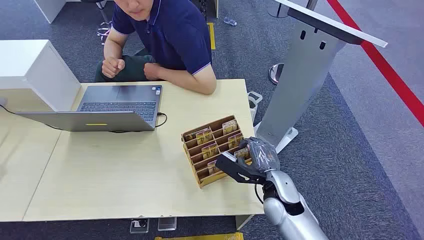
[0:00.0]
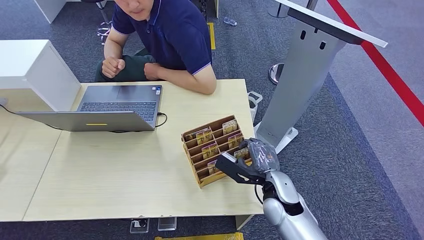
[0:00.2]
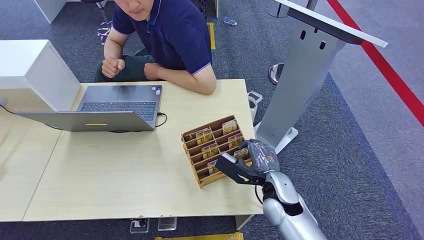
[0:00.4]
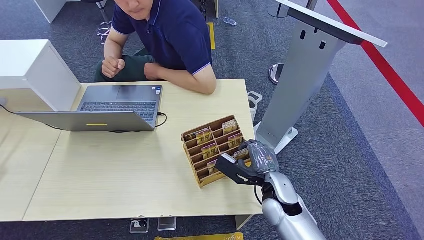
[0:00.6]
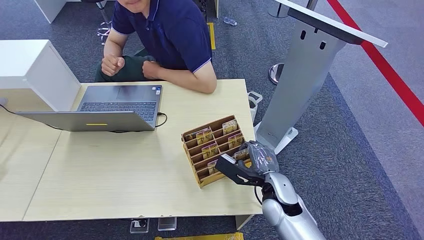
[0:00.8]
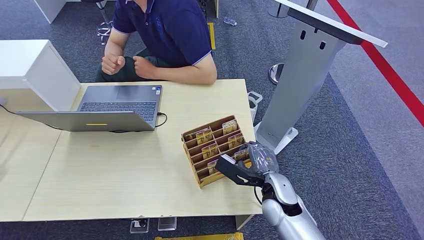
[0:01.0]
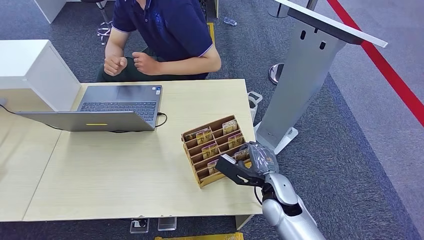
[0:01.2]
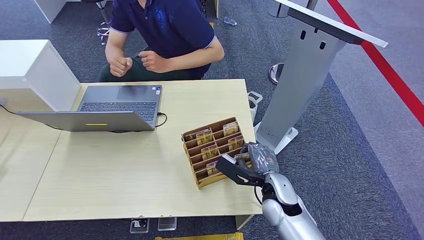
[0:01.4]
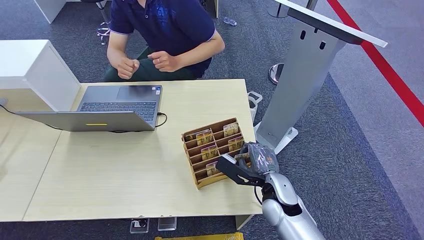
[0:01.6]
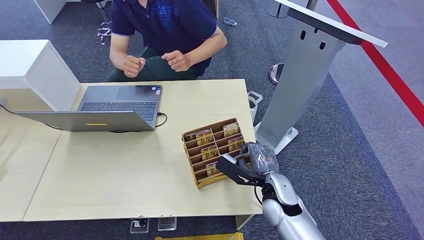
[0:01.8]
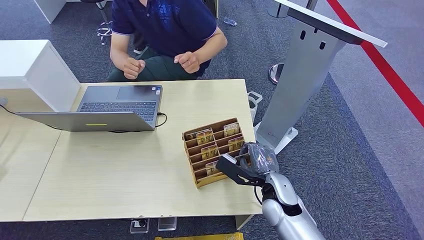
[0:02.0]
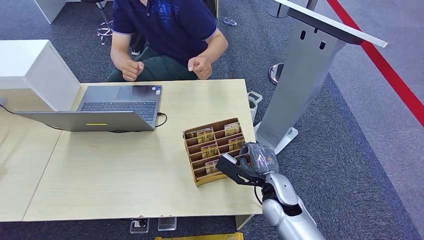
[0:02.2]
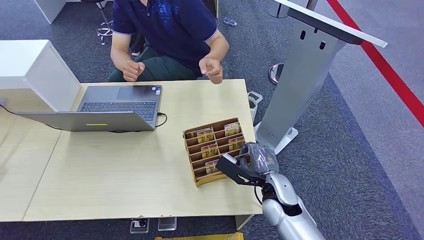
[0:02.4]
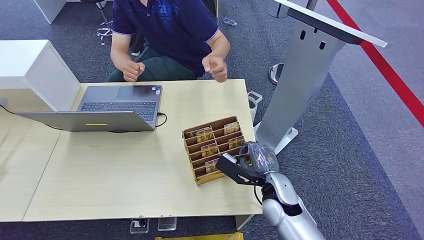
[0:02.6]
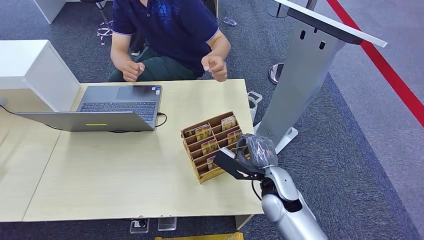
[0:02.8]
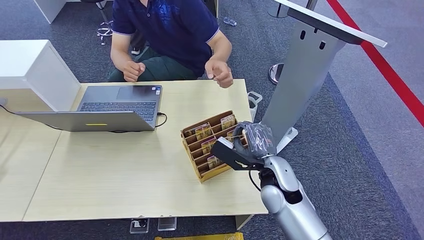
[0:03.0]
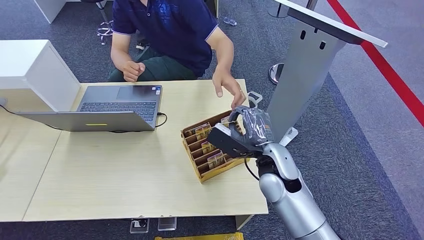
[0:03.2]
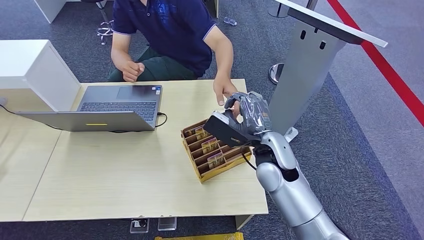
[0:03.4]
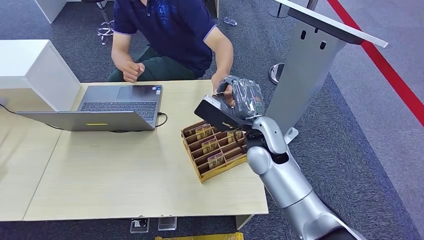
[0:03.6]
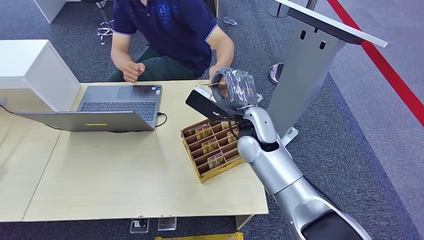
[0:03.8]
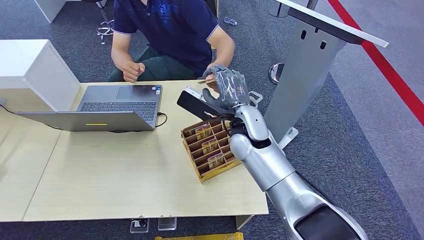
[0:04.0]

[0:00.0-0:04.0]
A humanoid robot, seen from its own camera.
Step, 0:00.0 to 0:02.8: Pick up the key card from the card box.
Step, 0:03.0 to 0:04.0: Hand the key card to the target.
0:01.4 to 0:02.6: Both hands stay put.
0:02.6 to 0:04.0: The right hand goes approximately 20 cm upward, forward and to the left.

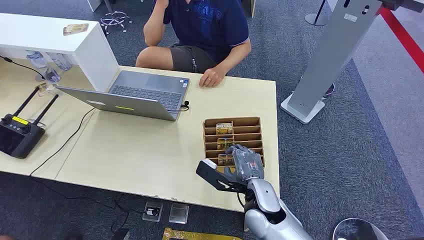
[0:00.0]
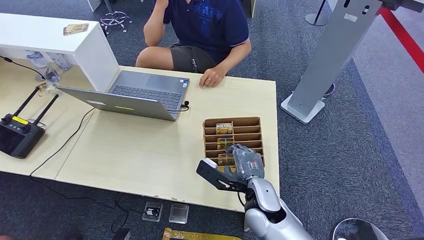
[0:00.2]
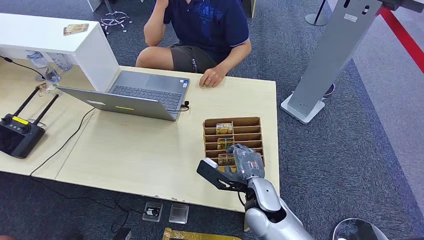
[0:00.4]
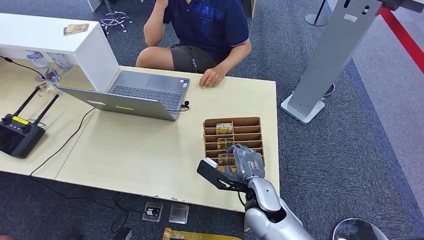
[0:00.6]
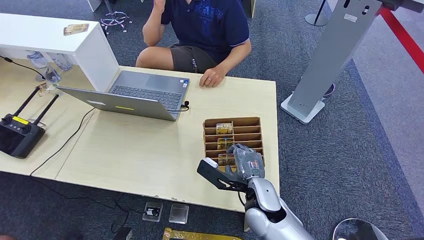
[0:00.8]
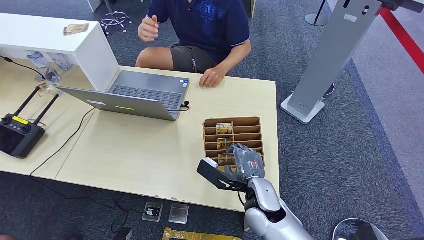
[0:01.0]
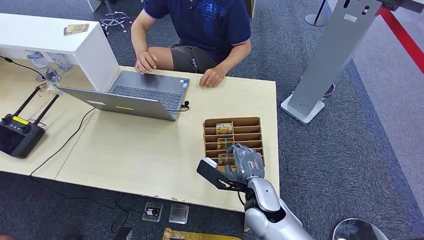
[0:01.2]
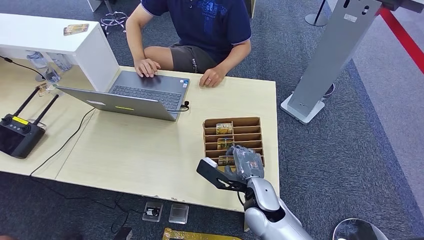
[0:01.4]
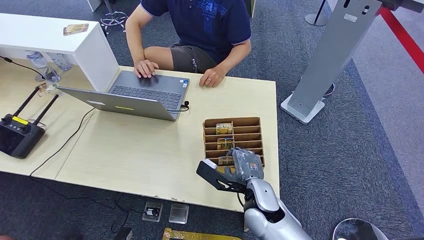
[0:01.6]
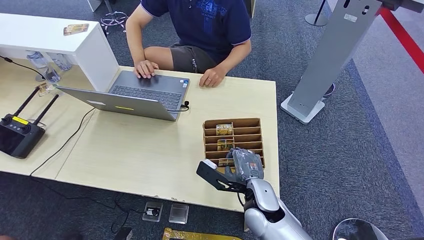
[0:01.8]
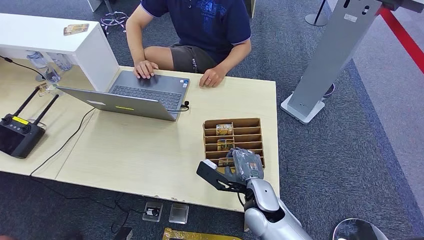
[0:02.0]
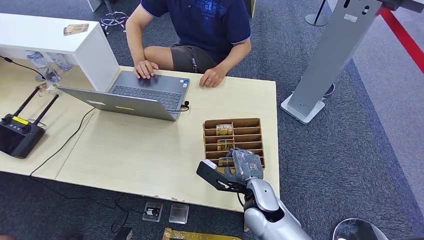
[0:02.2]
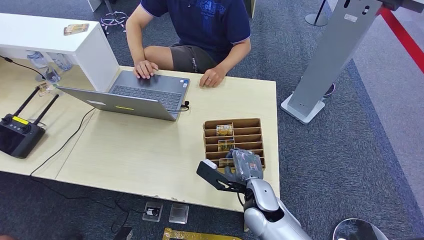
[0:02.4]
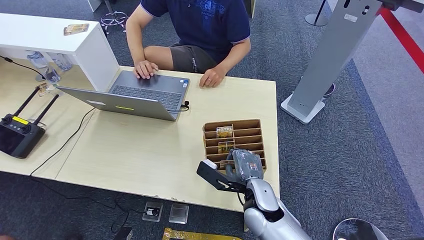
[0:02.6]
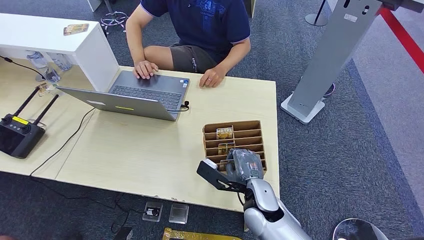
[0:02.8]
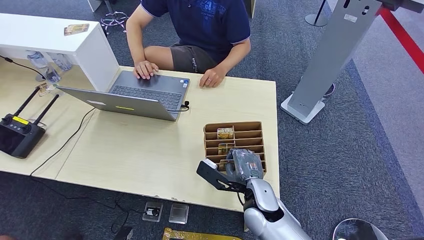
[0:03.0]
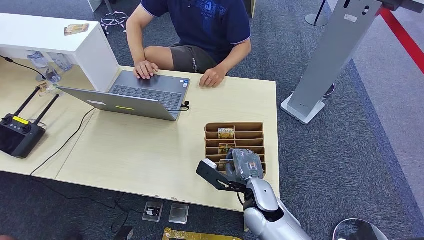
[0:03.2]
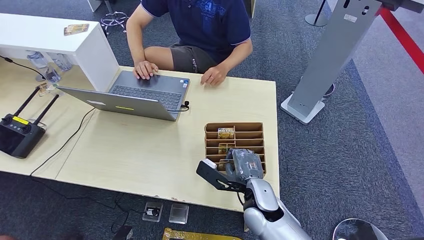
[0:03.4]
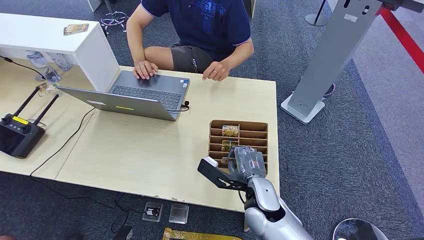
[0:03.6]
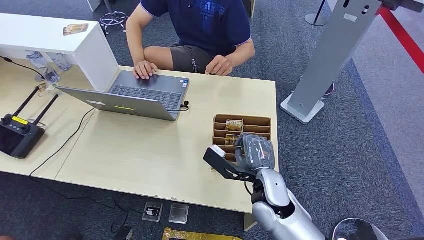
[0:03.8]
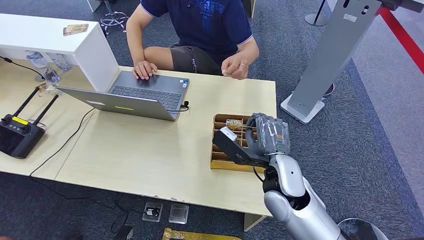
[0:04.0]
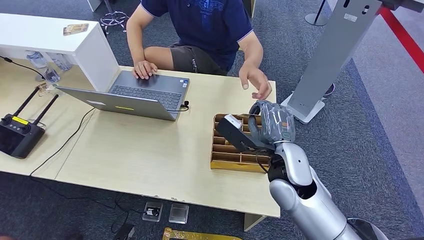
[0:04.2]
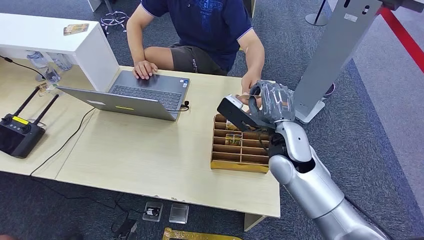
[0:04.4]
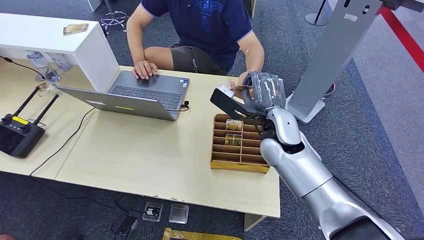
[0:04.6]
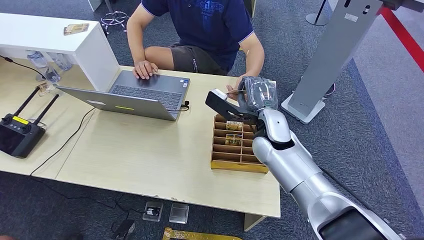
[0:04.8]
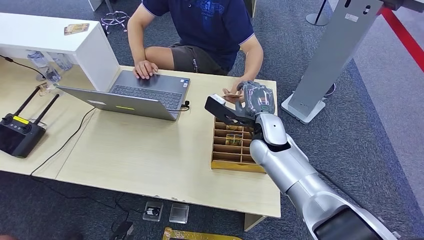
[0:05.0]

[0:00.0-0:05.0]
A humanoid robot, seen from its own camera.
Step, 0:00.0 to 0:03.8: Pick up the key card from the card box.
Step, 0:04.2 to 0:05.0: Hand the key card to the target.
0:01.6 to 0:03.4: Both hands stay put.
0:03.4 to 0:05.0: The right hand shifts approximately 15 cm forward and upward.

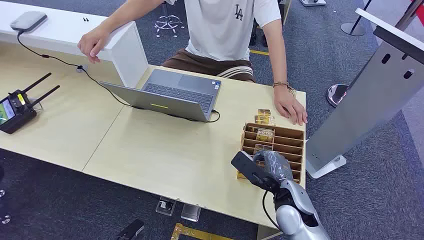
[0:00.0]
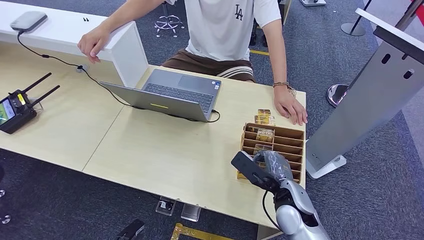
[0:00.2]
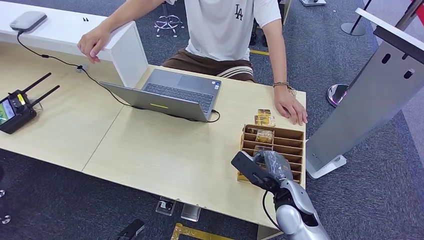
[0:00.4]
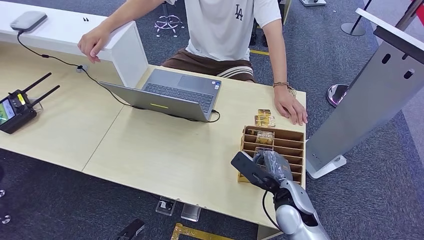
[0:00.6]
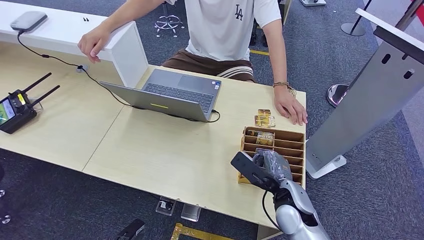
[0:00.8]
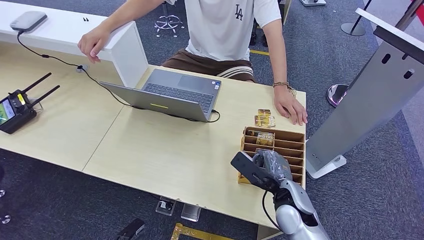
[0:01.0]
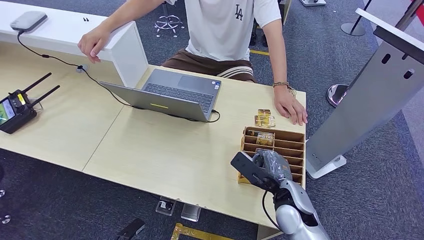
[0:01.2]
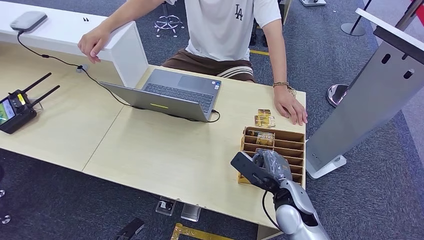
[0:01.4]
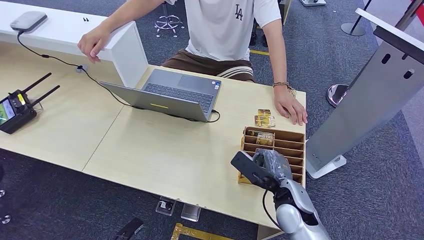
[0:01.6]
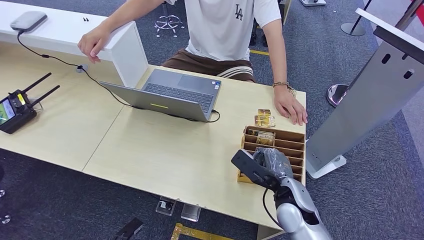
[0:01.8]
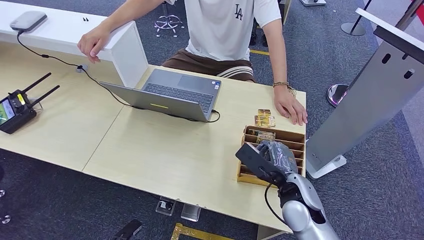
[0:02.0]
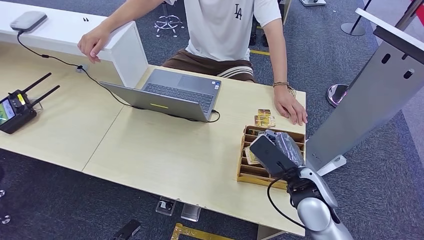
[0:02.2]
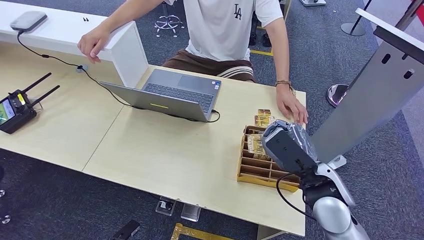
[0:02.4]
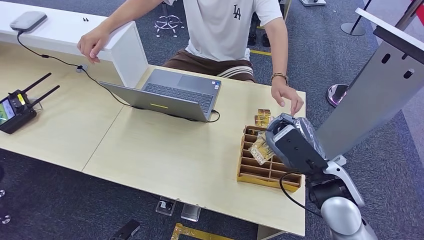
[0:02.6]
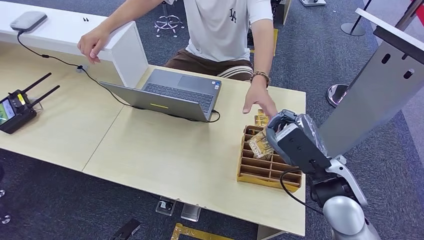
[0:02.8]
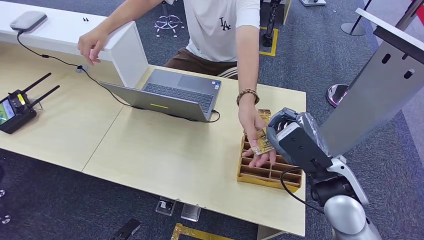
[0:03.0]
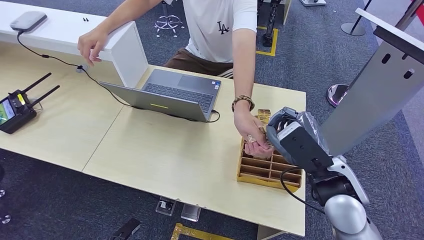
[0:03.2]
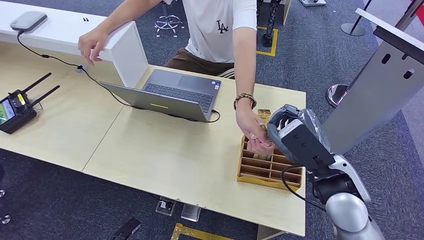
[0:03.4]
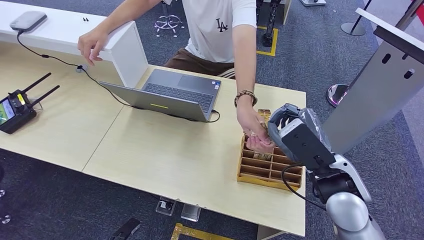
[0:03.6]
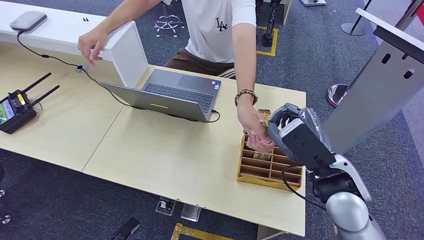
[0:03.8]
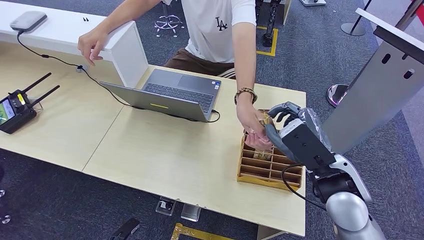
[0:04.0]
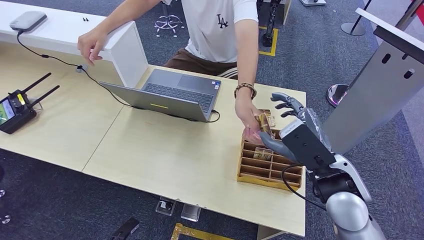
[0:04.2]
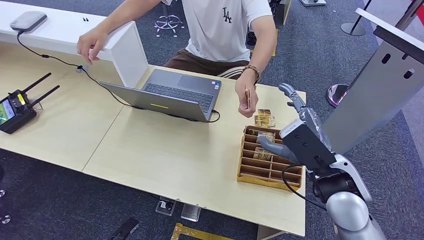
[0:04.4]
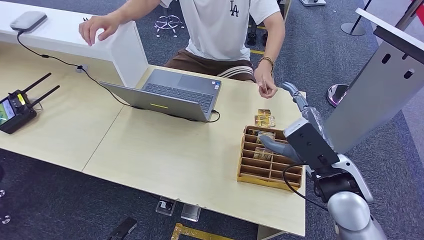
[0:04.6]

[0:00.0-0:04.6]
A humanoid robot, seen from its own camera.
Step, 0:00.0 to 0:02.4: Pick up the key card from the card box.
Step, 0:02.6 to 0:04.6: Hand the key card to the target.
0:01.6 to 0:03.0: The right hand heads upward, covering some 15 cm.
0:03.0 to 0:04.6: The two hands keep their place.
